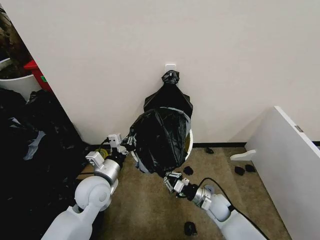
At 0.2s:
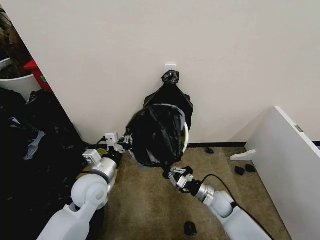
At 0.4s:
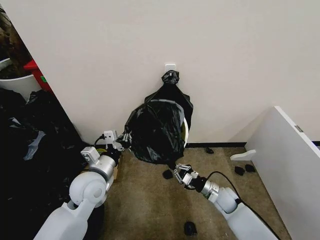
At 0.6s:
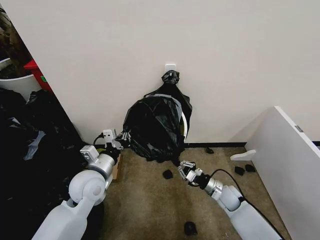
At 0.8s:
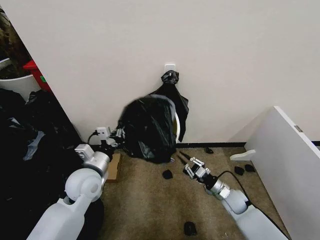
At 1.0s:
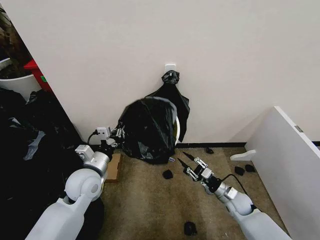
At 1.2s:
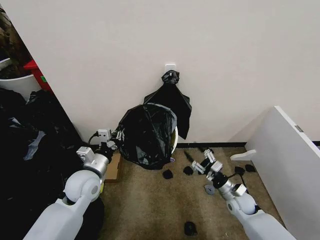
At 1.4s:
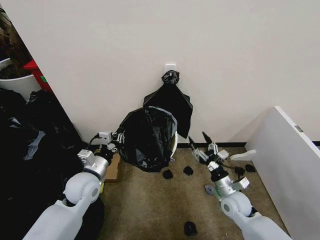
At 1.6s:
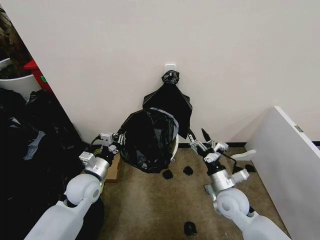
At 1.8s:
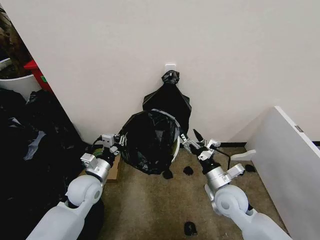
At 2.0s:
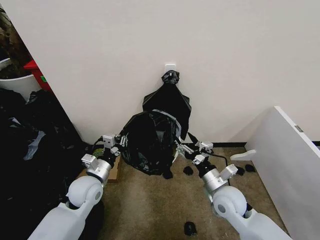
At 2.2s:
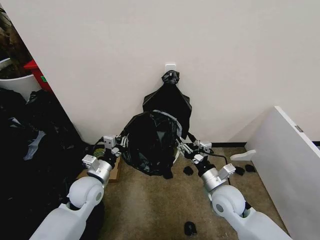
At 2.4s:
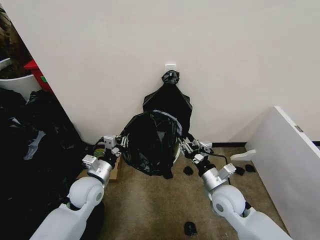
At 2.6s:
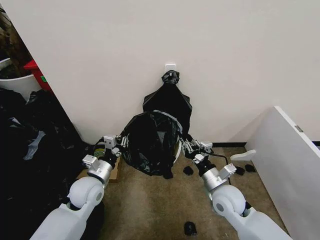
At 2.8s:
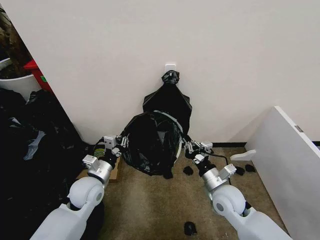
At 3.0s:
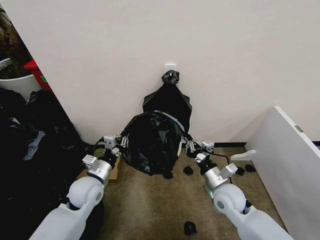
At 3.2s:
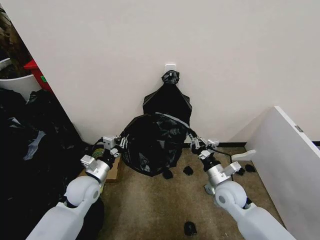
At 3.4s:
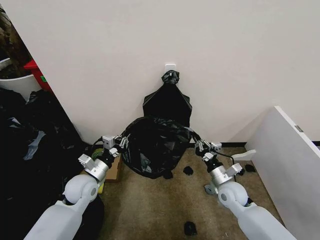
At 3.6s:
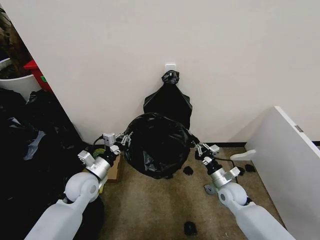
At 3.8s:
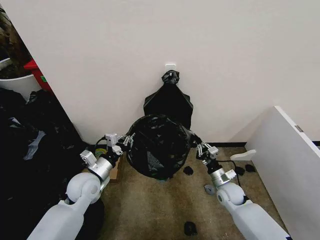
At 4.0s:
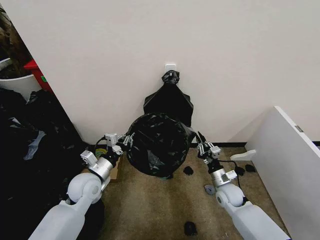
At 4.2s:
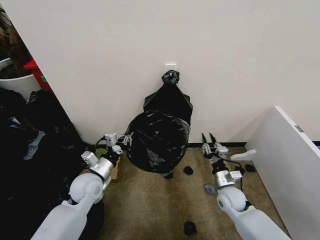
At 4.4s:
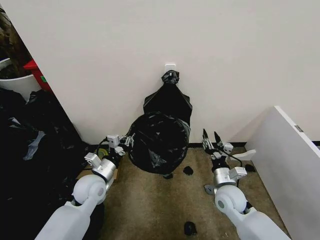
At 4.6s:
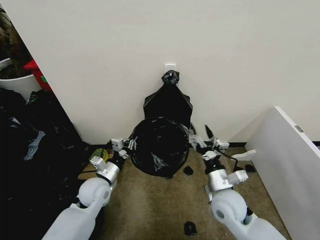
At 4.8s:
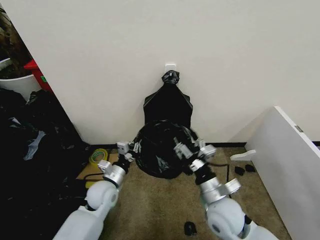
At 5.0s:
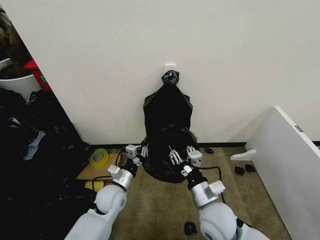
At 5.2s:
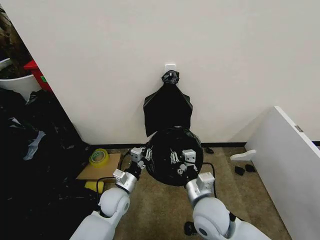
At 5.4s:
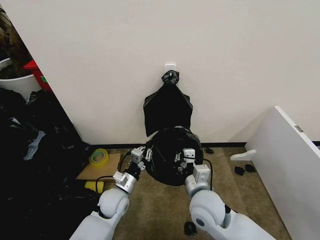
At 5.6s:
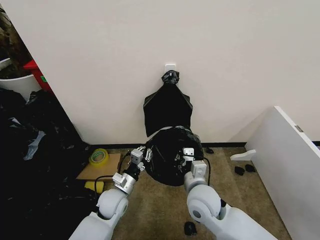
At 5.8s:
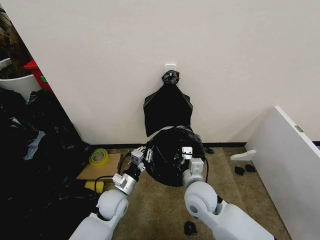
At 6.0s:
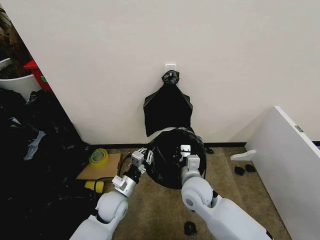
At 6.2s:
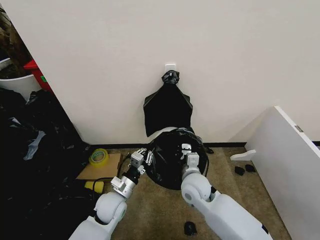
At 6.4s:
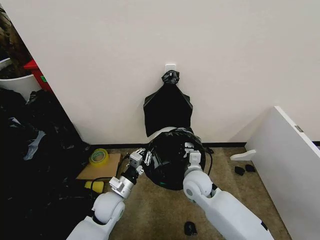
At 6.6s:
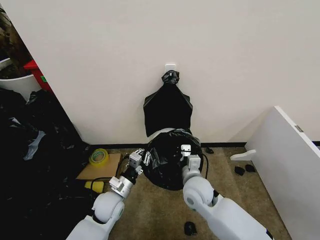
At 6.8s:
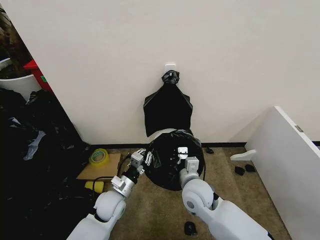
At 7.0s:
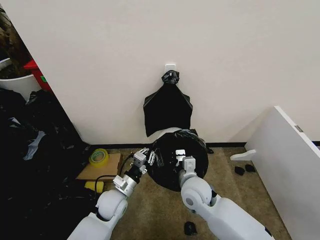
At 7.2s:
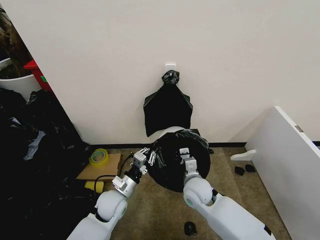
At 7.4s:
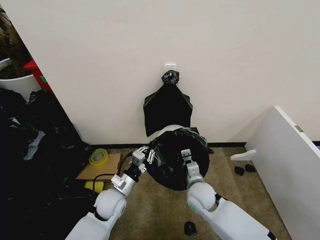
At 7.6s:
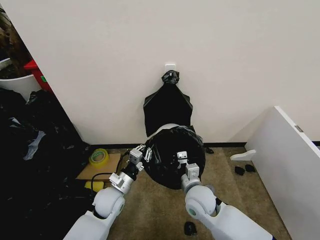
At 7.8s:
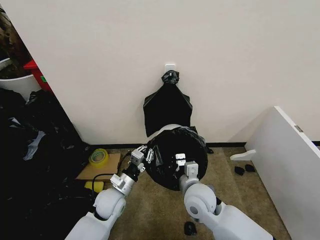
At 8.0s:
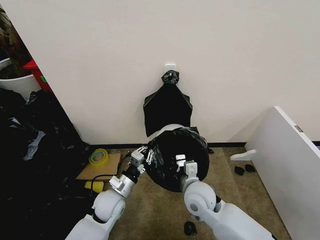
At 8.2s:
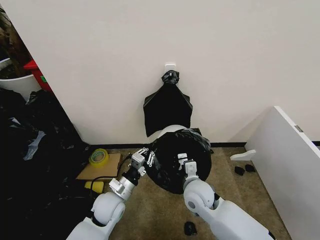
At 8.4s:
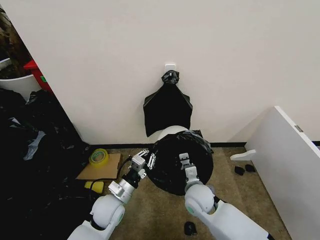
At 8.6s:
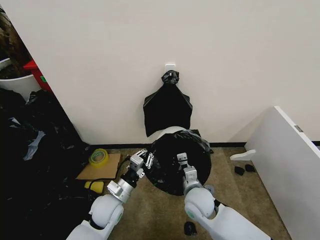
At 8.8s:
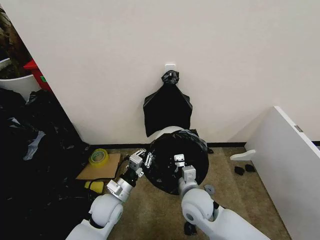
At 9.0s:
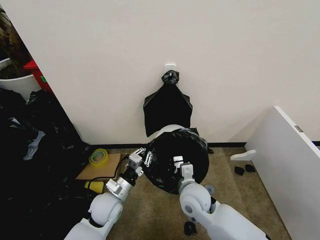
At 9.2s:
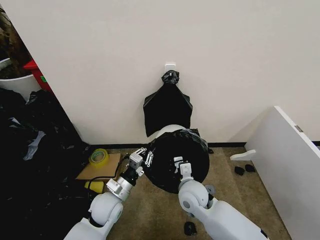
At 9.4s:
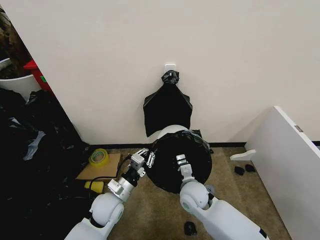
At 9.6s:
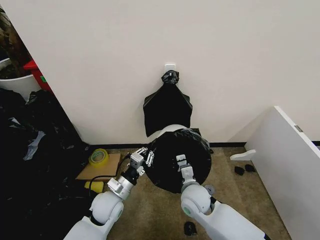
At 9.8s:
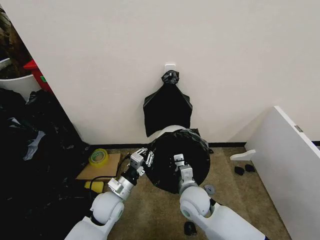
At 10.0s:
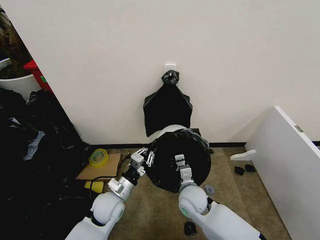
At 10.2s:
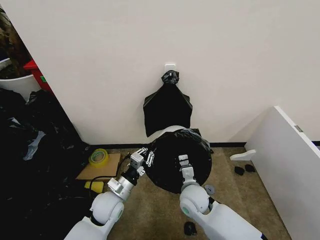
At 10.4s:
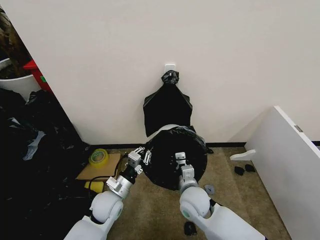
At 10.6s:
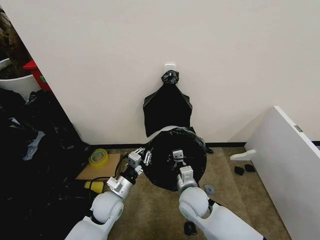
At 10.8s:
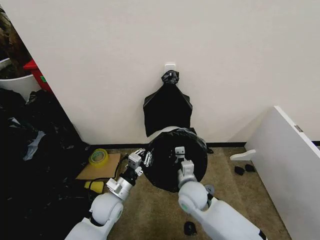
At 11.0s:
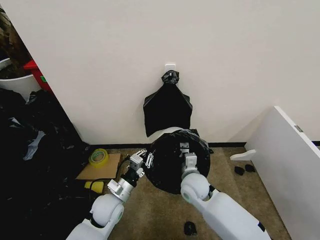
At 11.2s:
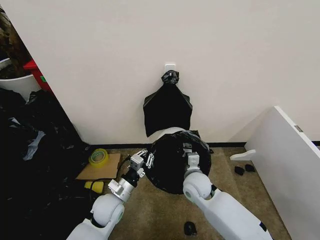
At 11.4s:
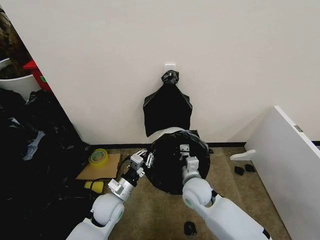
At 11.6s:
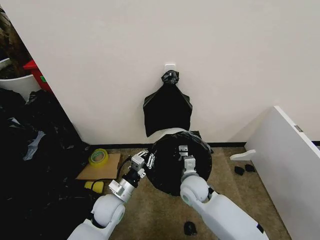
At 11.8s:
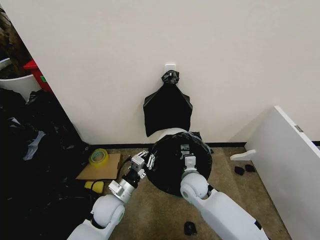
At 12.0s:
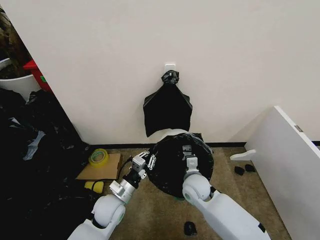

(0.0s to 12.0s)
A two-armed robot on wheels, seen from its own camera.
Task of the whole recording: Place the garbage bag over the trash bin.
0.0s - 1.6s: The left gripper changes place by some 5 cm; the right gripper goes roughly 15 cm upward, and opens its fingers.
1.6s - 3.0s: The right gripper closes its fingers.
3.0s - 4.4s: The right gripper goes downward and returns, approximately 10 cm each way, and opens its fingers.
4.4s - 6.0s: The left gripper is displaced to the right and downward by approximately 10 cm. The right gripper heads to the left and upward, covering roughly 15 cm, and closes its fingers.
7.6s - 9.0s: The right gripper goes up and down, about 5 cm each way, reversing 2 times.
9.0s - 10.4s: The grippers stay close to where they were, moving slightly.
10.4s - 12.0s: The right gripper travels forward by roughly 5 cm.

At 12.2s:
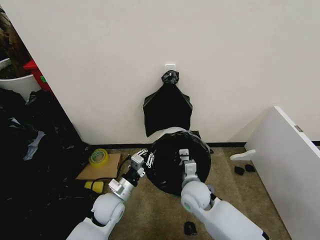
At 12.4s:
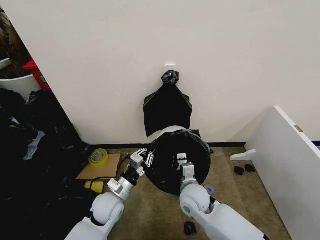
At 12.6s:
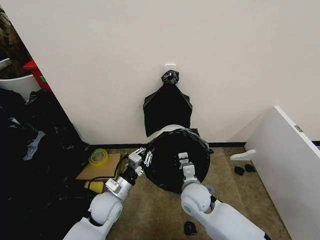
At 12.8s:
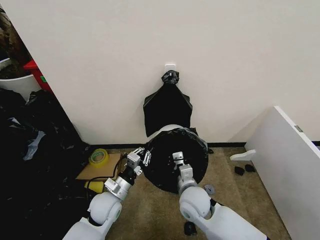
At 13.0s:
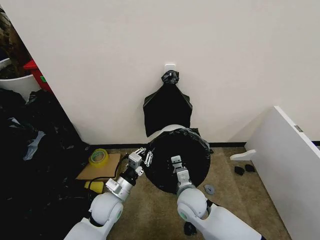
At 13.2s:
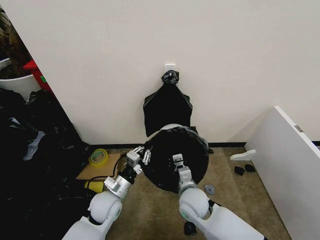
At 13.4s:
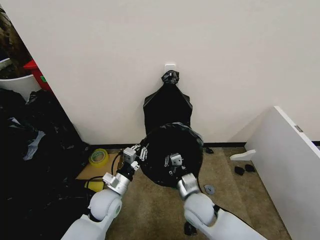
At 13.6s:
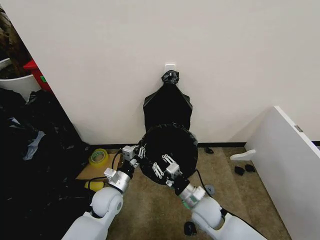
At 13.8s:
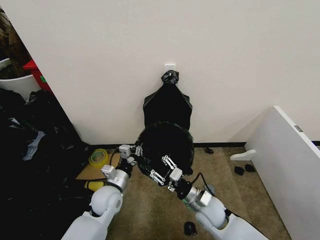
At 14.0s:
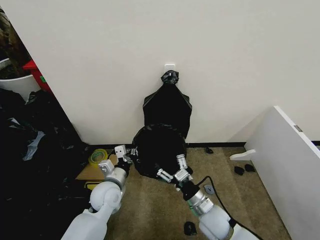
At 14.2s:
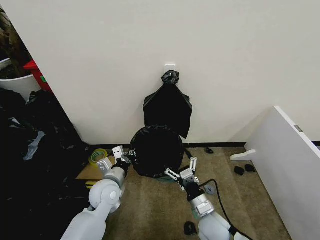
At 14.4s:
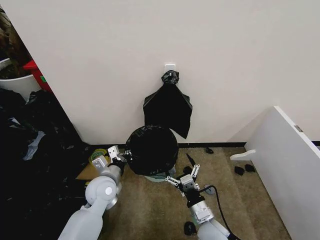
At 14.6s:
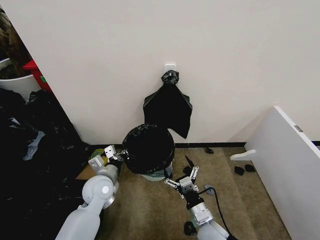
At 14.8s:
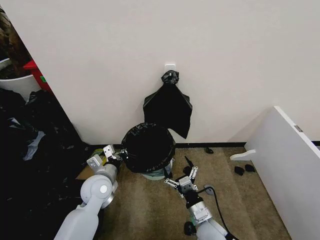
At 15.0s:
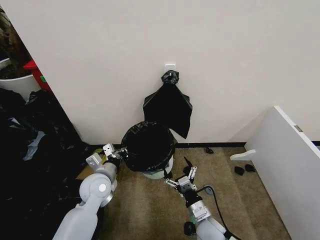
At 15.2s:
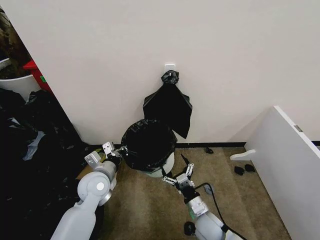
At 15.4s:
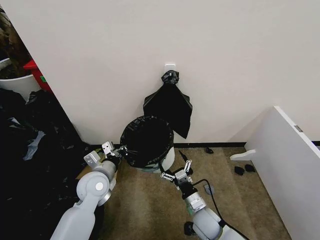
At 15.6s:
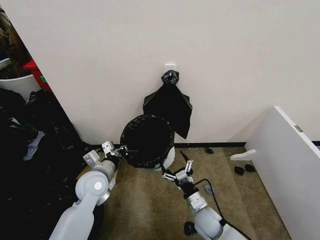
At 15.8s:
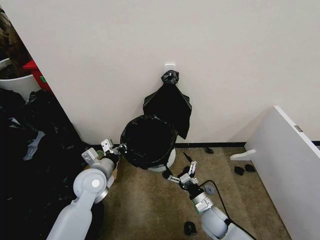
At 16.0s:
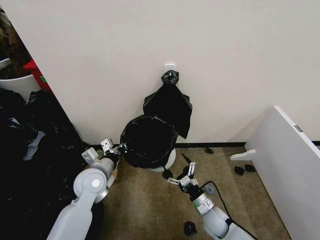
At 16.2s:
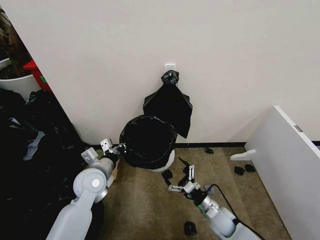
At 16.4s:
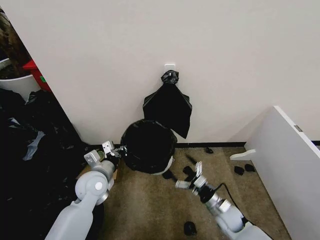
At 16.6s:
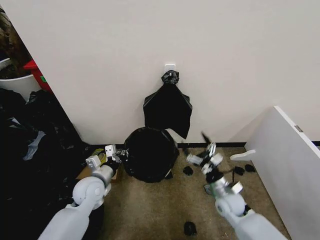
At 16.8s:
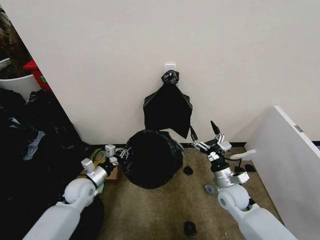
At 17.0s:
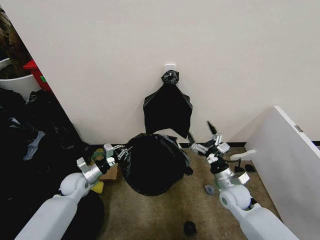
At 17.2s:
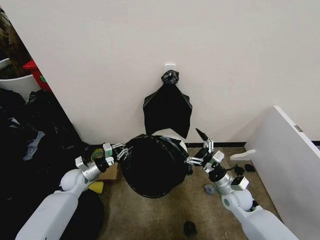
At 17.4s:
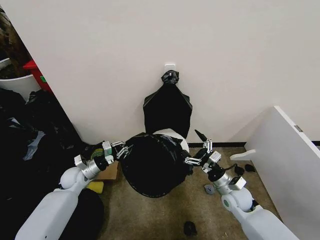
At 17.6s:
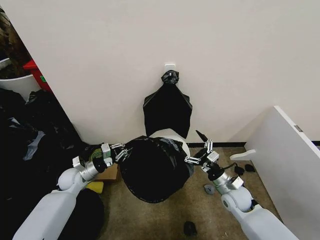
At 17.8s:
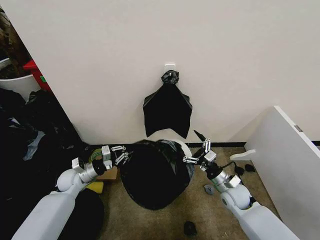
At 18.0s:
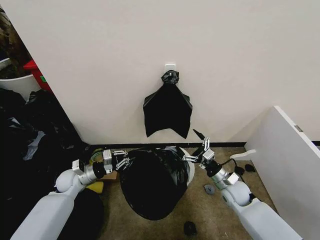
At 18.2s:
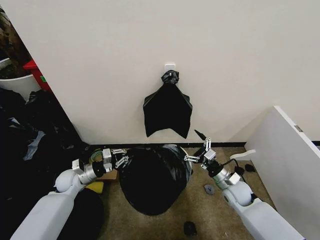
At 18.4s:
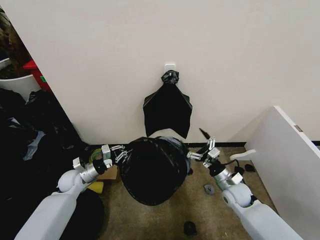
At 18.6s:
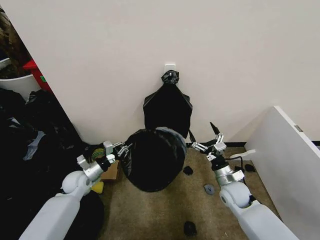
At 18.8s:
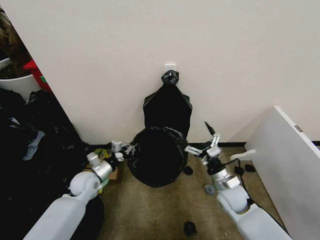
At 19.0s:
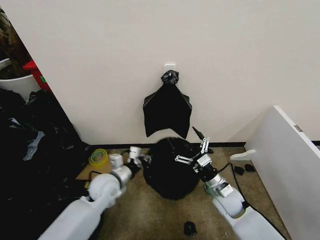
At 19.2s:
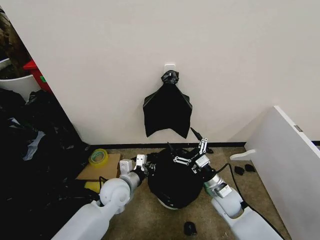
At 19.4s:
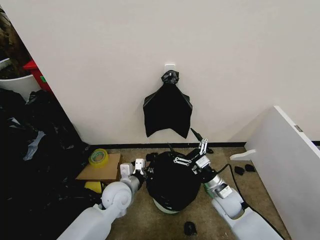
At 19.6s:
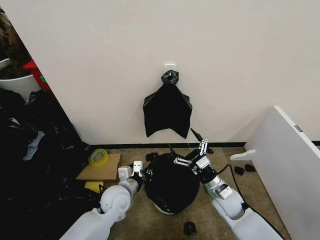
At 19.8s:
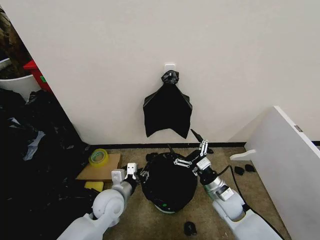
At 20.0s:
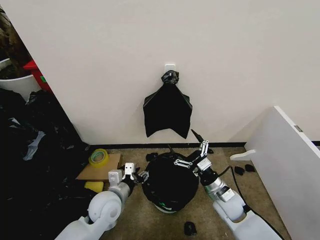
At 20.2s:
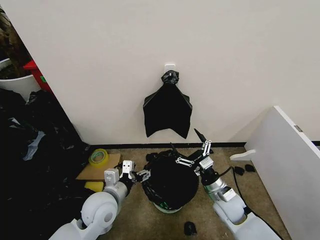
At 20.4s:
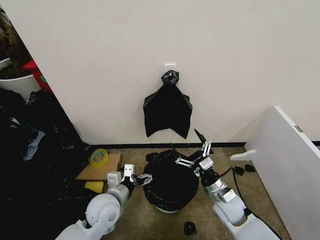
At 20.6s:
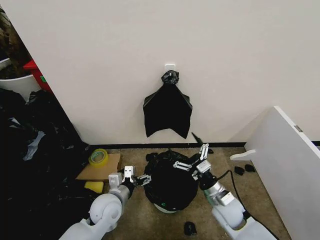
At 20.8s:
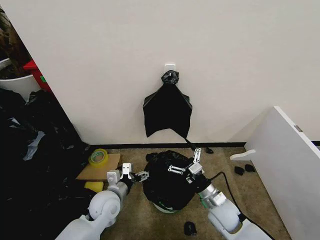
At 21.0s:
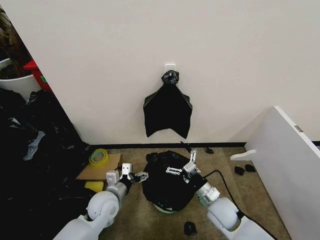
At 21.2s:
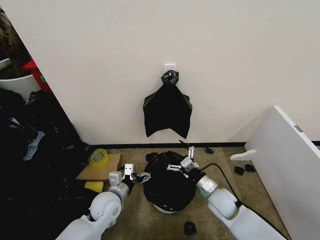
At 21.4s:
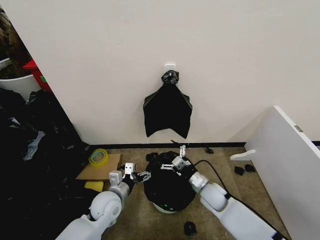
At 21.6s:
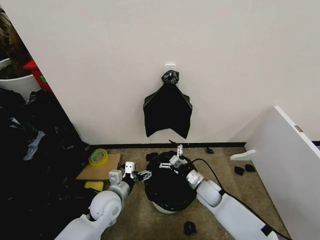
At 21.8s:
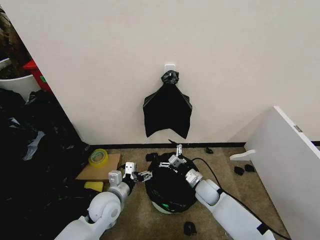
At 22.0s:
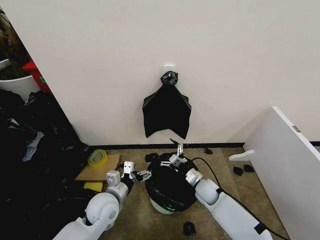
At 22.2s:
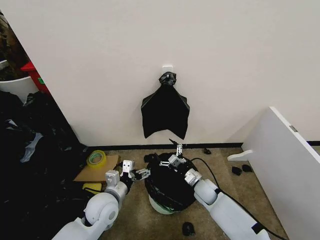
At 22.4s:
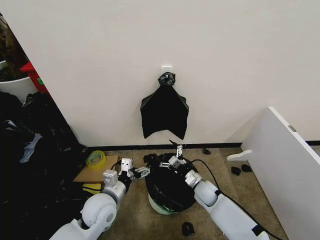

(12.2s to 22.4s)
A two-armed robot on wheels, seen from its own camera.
Task of the whole recording: Place the garbage bag over the trash bin.
12.2s - 13.6s: The right gripper travels backward by approximately 5 cm.
13.6s - 15.2s: The right gripper heads downward, covering about 5 cm, and opens, while the left gripper shifts about 5 cm upward.
15.2s - 16.6s: The right gripper goes roughly 10 cm to the right and forward.
16.6s - 18.0s: The left gripper moves to the left and forward, about 10 cm. Meanwhile the right gripper ends up roughly 5 cm from where it was.
18.0s - 19.4s: The right gripper heads to the left, covering some 5 cm. The left gripper heads to the right, covering approximately 20 cm.
19.4s - 21.0s: The left gripper changes place by approximately 5 cm, and opens.
21.0s - 22.4s: The right gripper is displaced forward and downward by some 10 cm.
